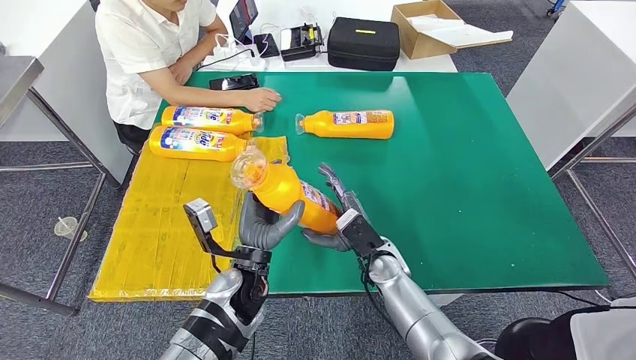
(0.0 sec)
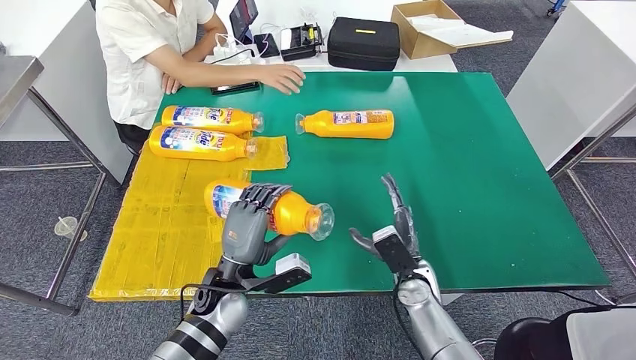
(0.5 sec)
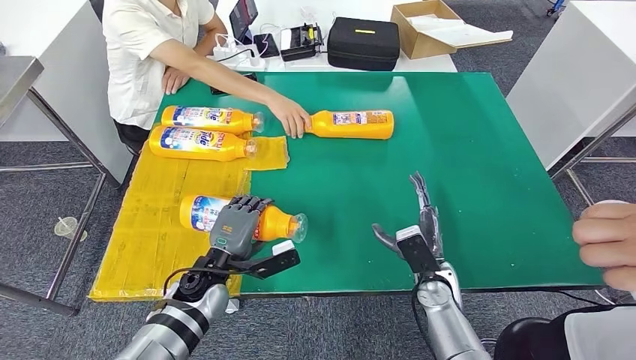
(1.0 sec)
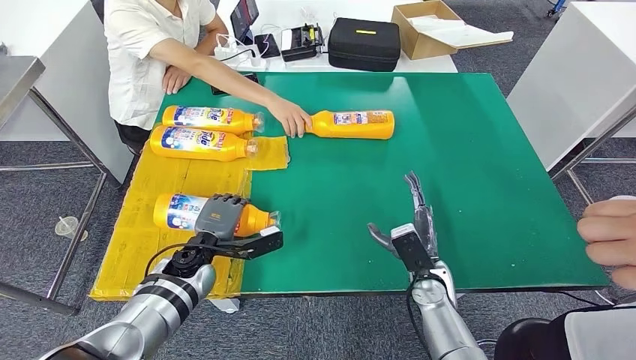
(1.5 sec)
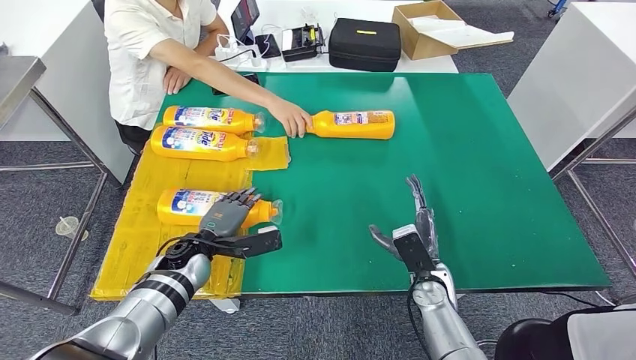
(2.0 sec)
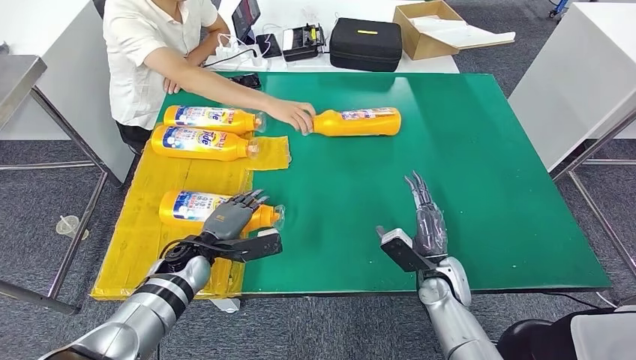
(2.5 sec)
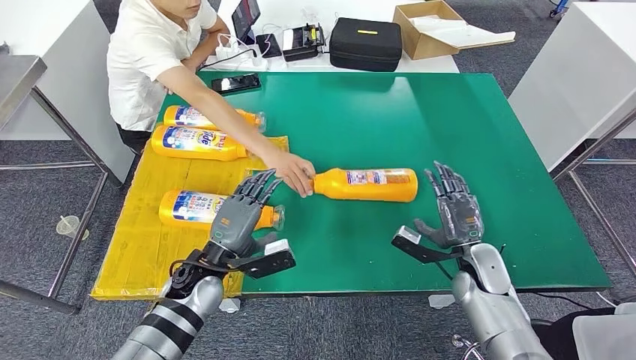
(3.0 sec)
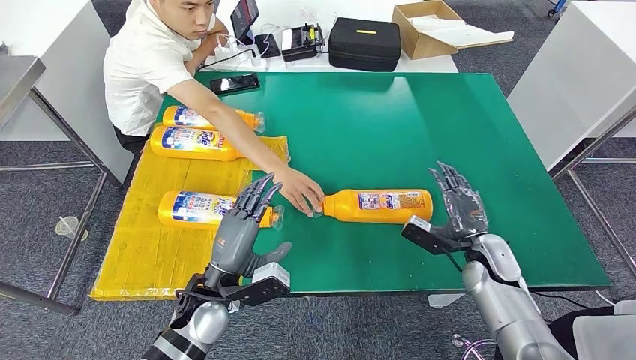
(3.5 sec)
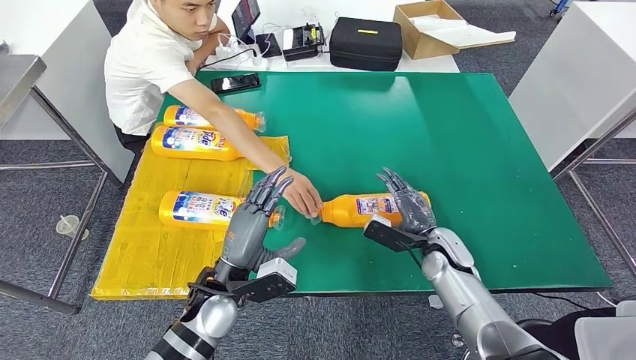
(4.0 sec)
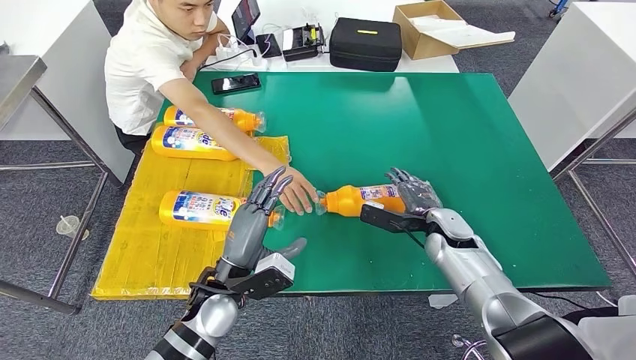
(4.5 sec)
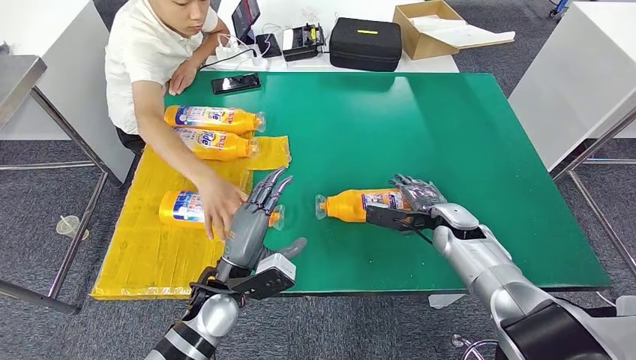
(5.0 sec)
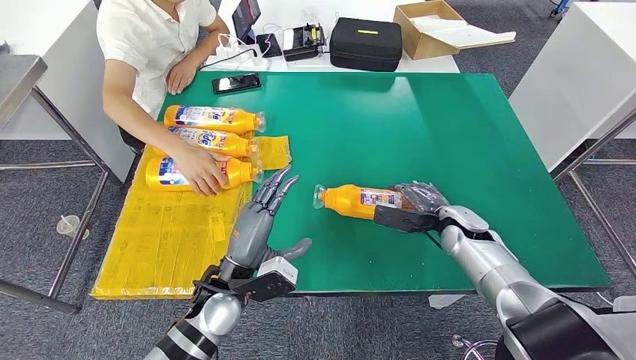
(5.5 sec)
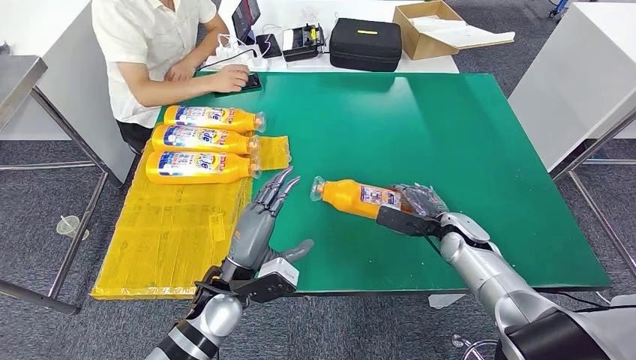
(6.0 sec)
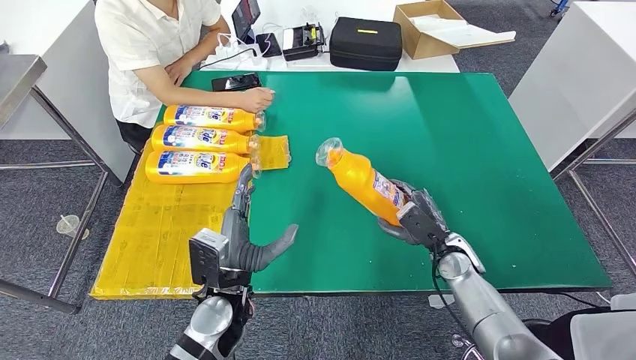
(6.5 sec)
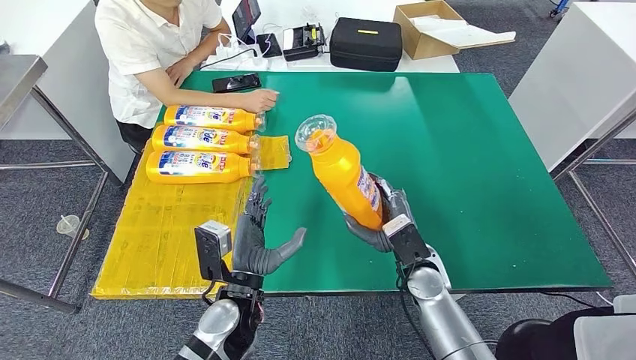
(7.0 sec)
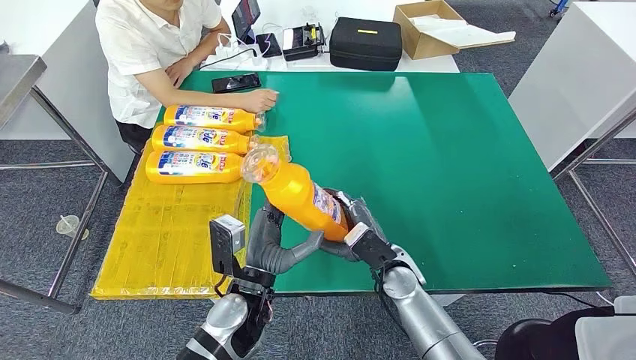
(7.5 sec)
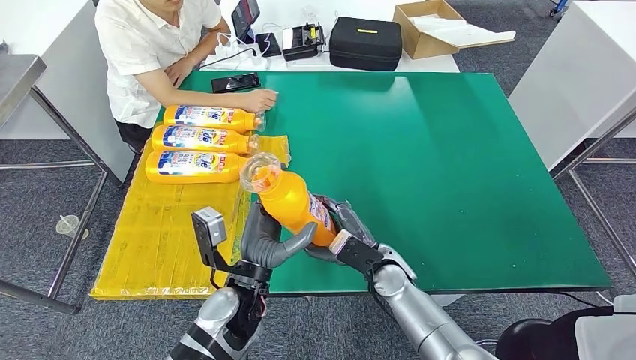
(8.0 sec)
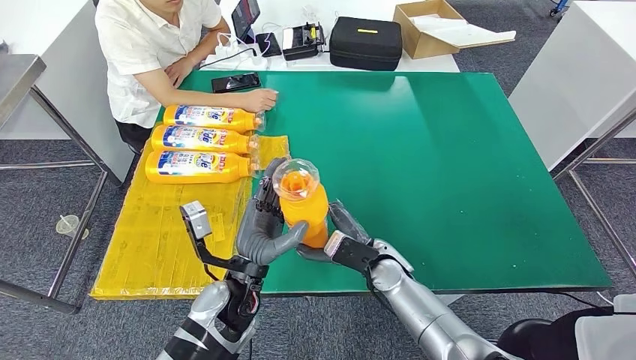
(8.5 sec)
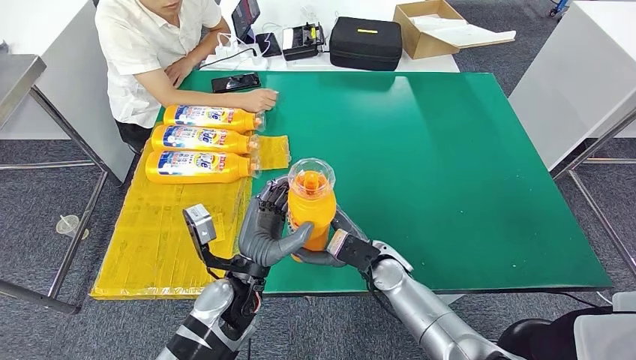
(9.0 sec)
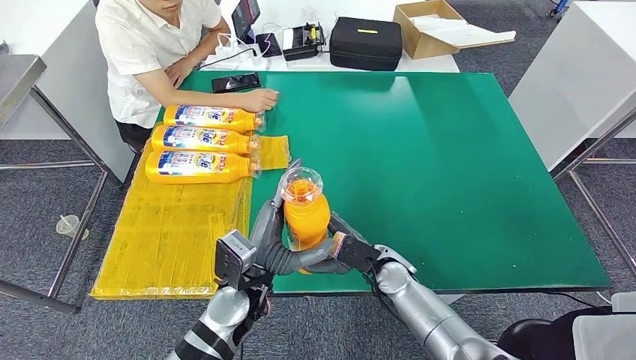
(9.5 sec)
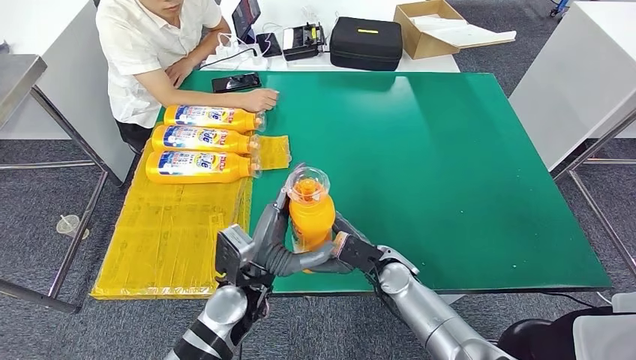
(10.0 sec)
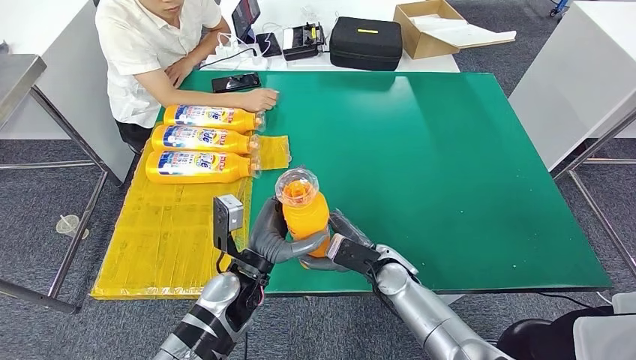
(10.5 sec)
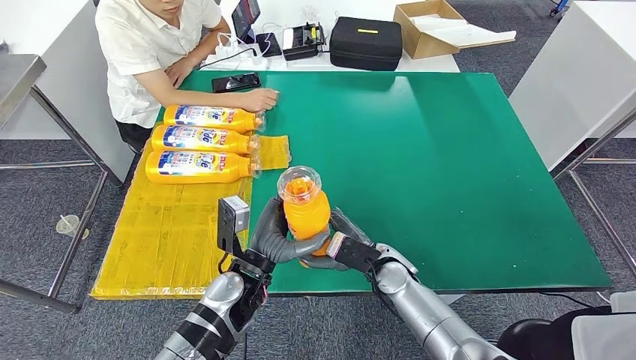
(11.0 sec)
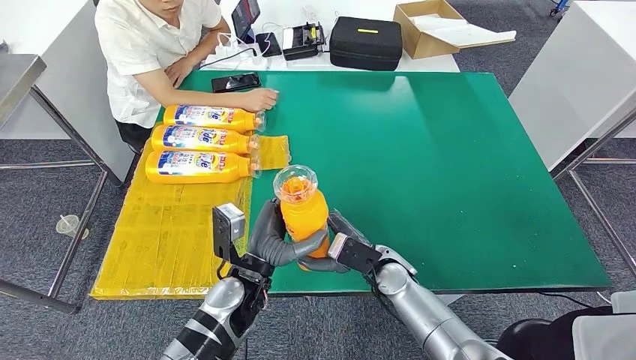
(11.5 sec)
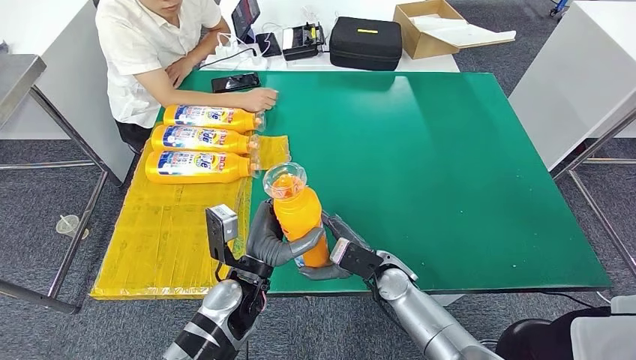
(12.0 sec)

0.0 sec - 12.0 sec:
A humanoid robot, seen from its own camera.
Step, 0.0 sec - 3.0 sec: Flip the fast-moving consumer goods bottle to the front side.
Step, 5.5 sec - 8.5 sec: Pick up the fast-moving consumer goods bottle from the table.
4.0 sec - 6.0 sec: The right hand moves approximately 5 cm.
6.0 sec - 8.0 sec: The right hand heads to the left, covering approximately 20 cm.
10.0 sec - 12.0 sec: There are only small adjustments of the hands.

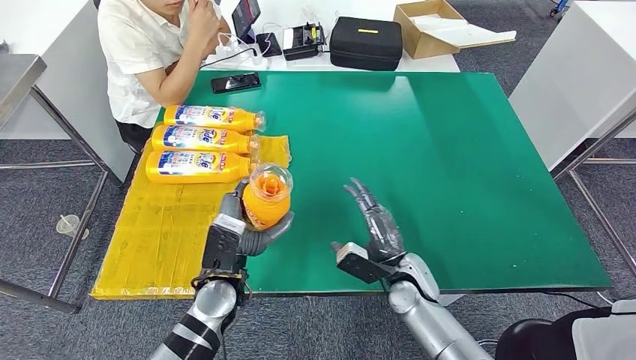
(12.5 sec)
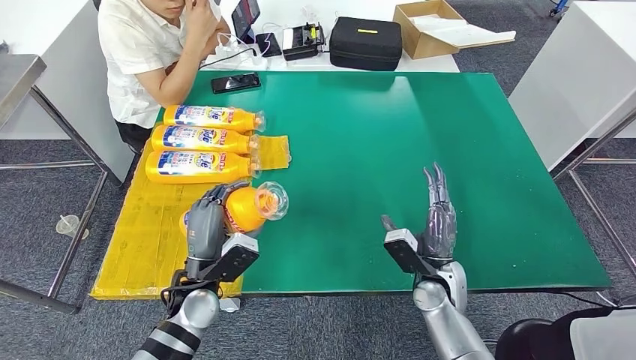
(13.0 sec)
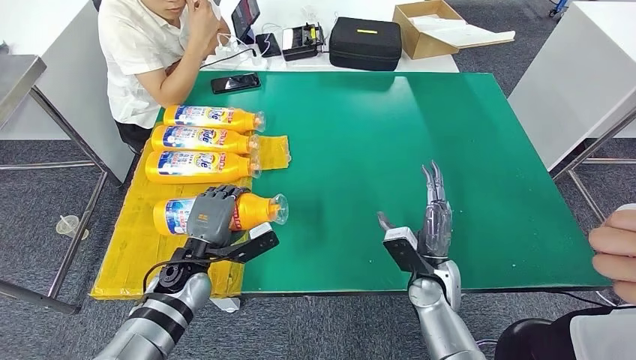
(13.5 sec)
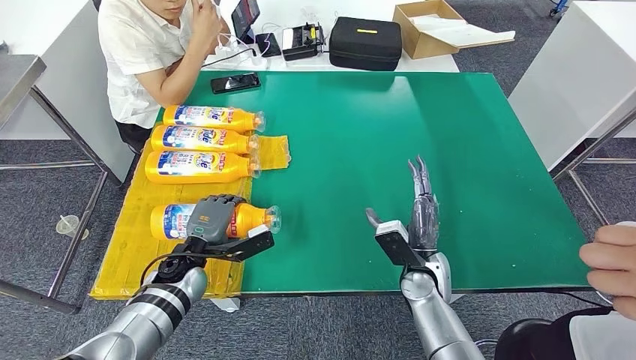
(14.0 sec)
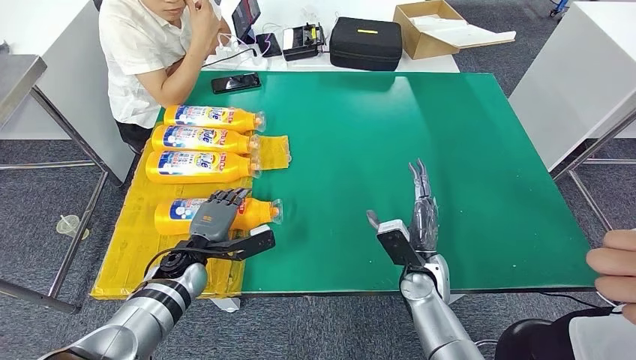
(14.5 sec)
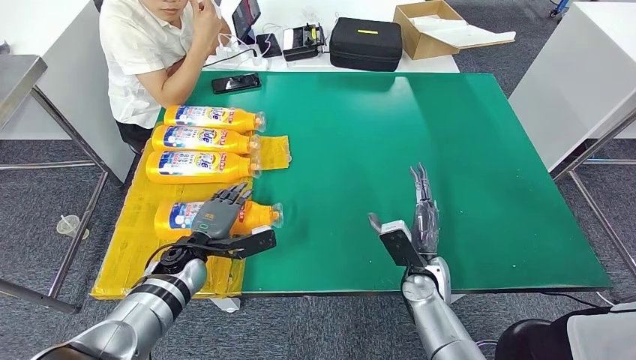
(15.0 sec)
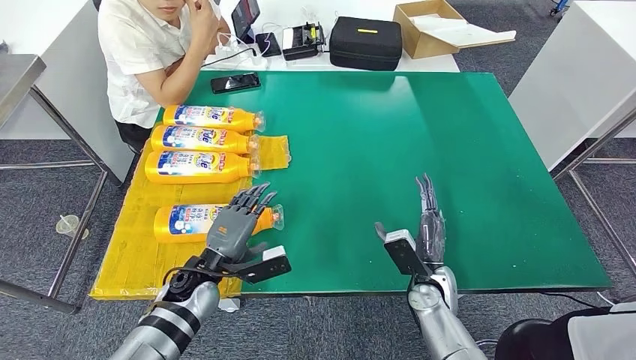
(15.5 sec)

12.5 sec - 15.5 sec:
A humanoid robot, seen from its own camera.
Step, 12.5 sec - 15.5 sec: Flip the fast-moving consumer goods bottle to the front side.
12.5 sec - 14.0 sec: The left hand is displaced to the left and forward by some 10 cm.
14.0 sec - 15.5 sec: The hands stay close to where they were, moving slightly.
